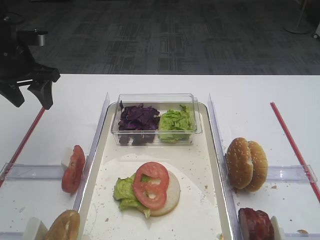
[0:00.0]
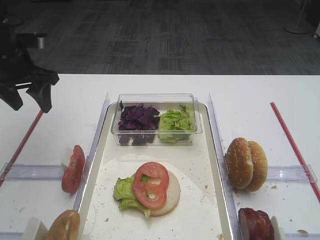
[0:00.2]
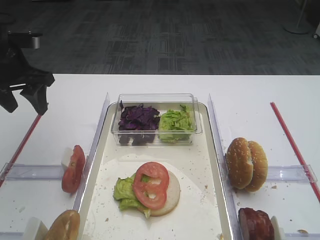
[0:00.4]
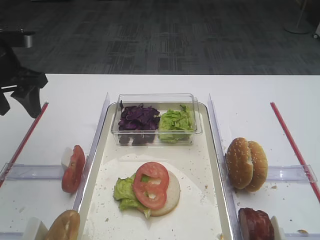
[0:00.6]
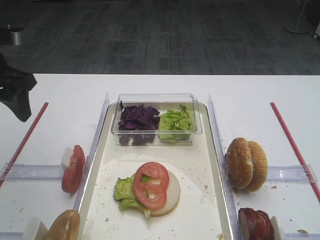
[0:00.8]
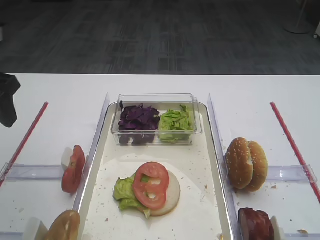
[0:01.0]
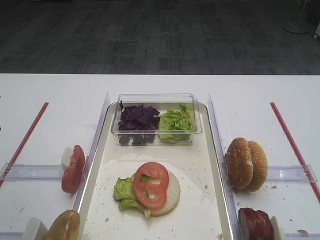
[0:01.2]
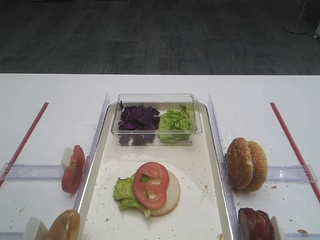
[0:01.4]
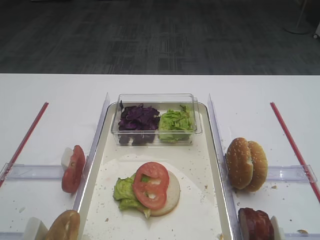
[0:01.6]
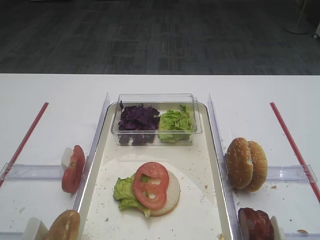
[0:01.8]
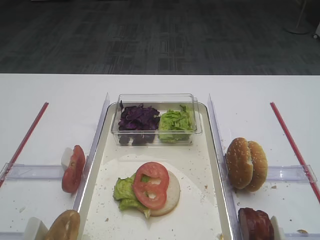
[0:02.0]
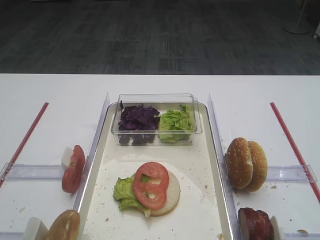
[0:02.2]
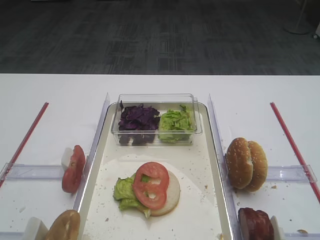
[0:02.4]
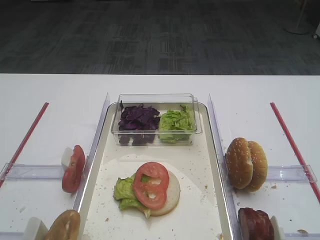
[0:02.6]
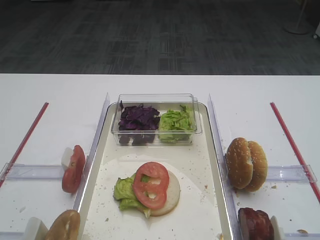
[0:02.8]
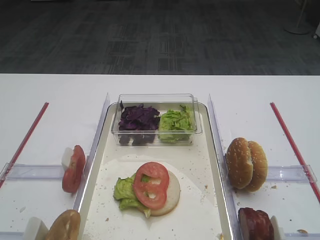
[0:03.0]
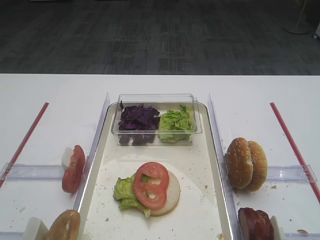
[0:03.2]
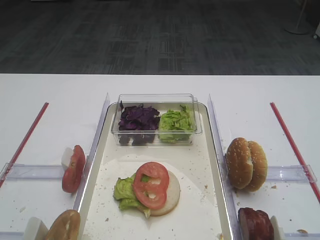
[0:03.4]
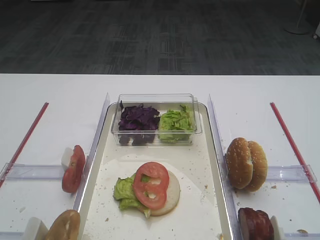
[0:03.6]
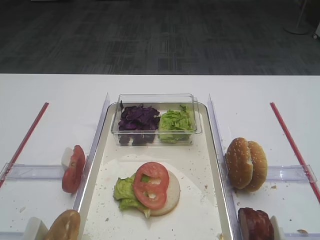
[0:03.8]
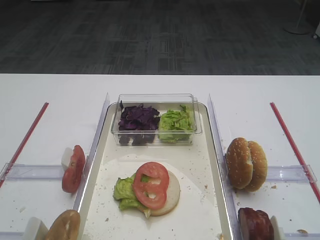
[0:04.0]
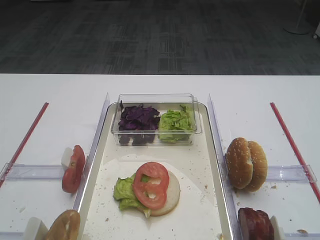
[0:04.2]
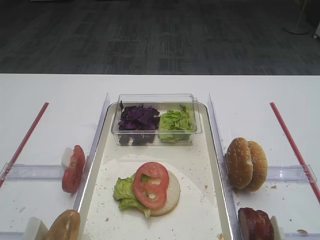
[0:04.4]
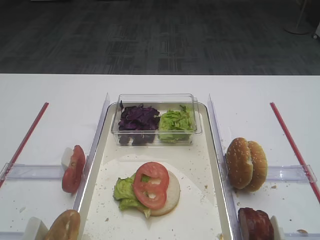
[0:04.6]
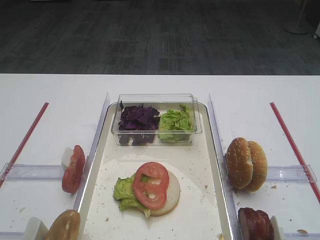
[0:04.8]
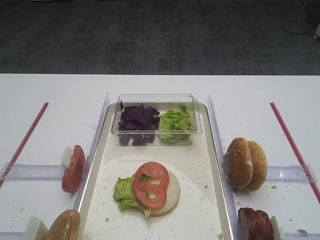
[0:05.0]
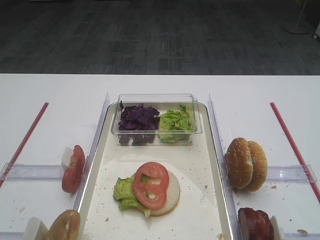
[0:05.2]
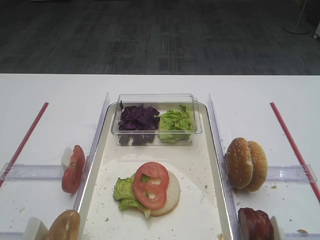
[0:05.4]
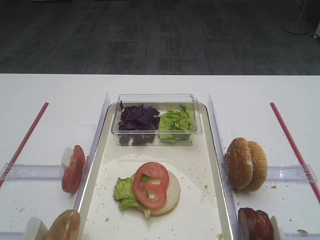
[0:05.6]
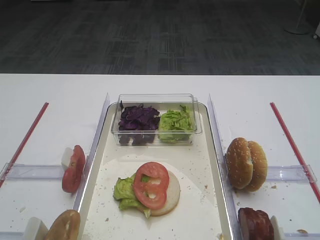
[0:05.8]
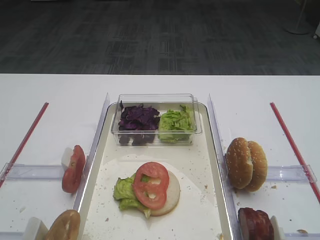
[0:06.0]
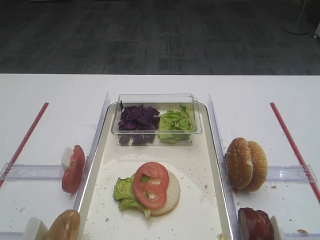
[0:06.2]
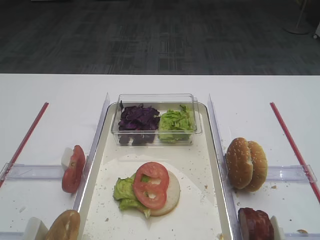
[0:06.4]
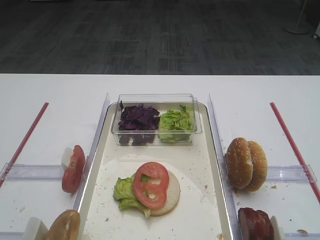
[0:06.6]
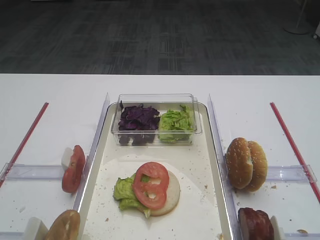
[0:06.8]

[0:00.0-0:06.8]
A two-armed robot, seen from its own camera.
0:00.0 to 0:01.4: The left gripper heads backward, covering roughly 20 cm.
0:04.0 to 0:06.8: The two grippers keep their place.

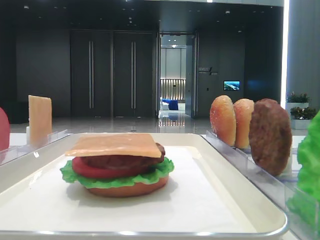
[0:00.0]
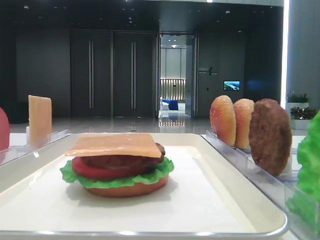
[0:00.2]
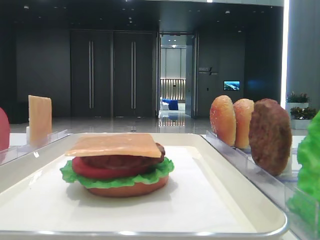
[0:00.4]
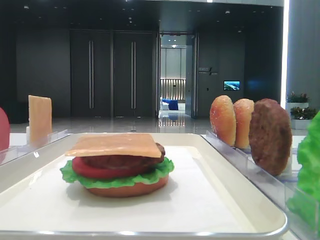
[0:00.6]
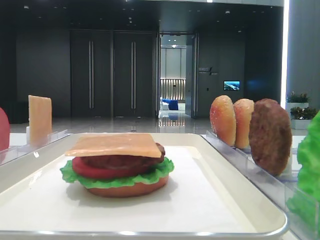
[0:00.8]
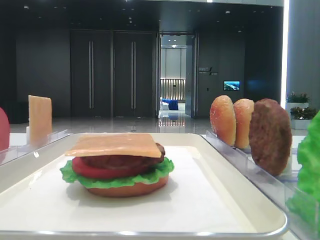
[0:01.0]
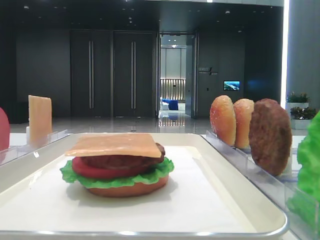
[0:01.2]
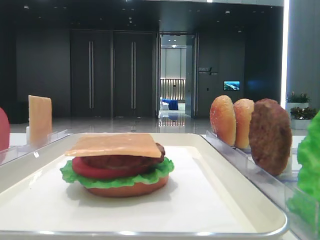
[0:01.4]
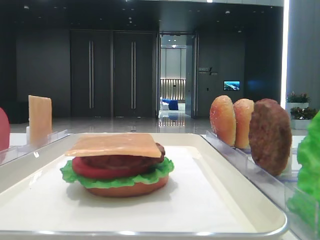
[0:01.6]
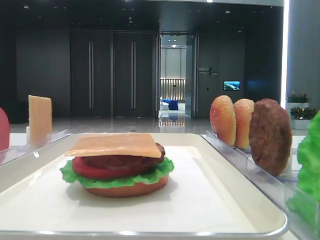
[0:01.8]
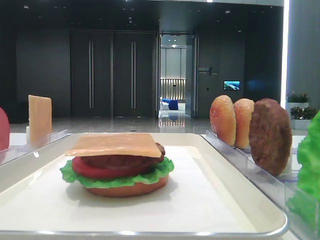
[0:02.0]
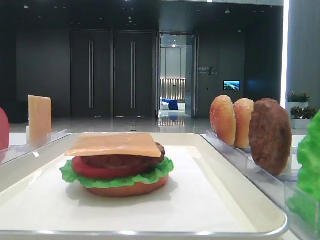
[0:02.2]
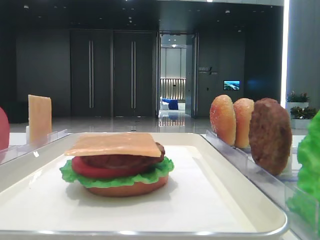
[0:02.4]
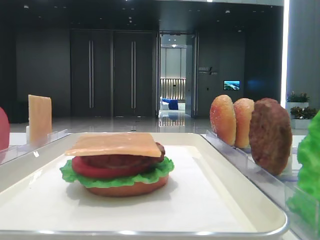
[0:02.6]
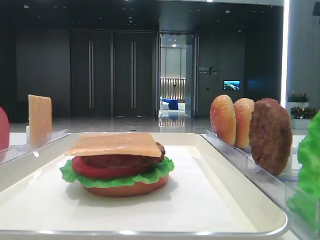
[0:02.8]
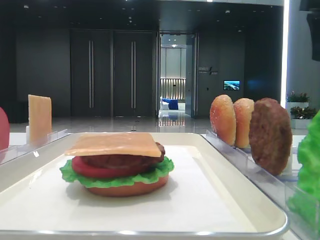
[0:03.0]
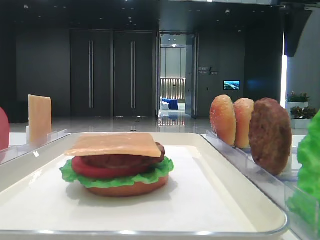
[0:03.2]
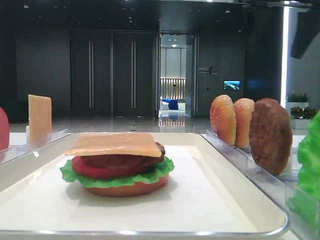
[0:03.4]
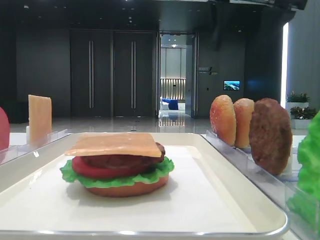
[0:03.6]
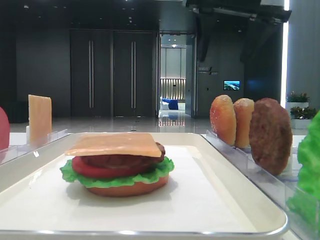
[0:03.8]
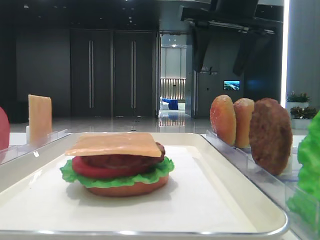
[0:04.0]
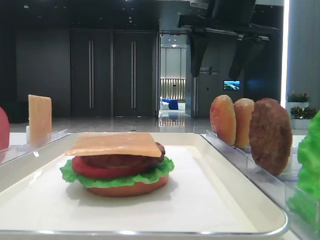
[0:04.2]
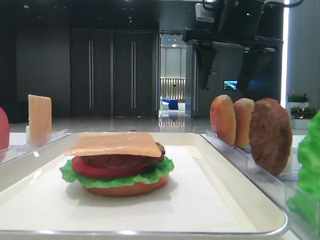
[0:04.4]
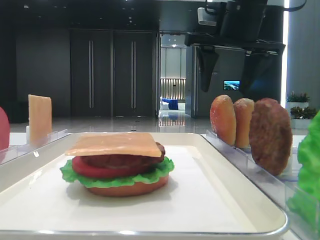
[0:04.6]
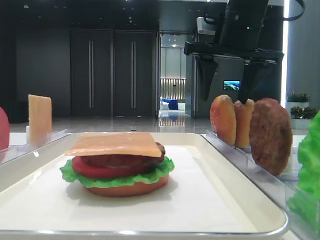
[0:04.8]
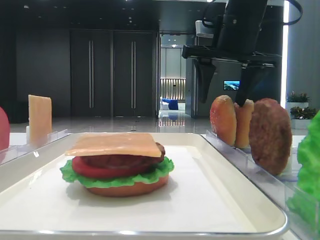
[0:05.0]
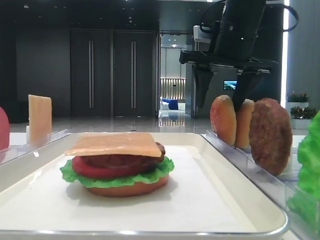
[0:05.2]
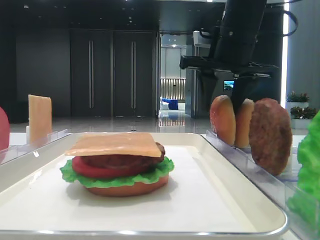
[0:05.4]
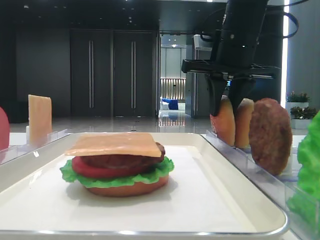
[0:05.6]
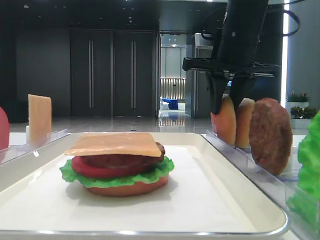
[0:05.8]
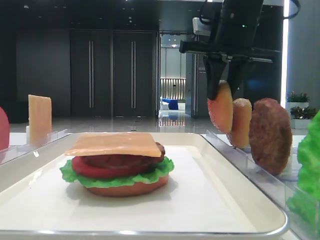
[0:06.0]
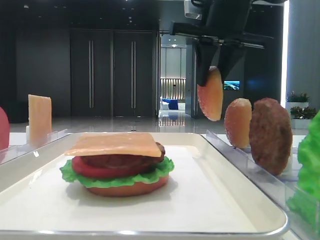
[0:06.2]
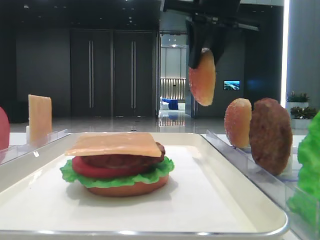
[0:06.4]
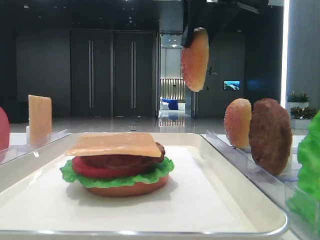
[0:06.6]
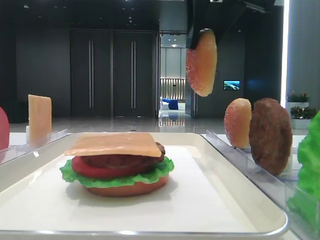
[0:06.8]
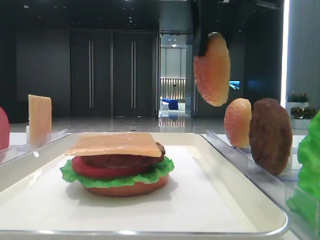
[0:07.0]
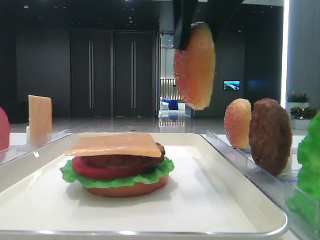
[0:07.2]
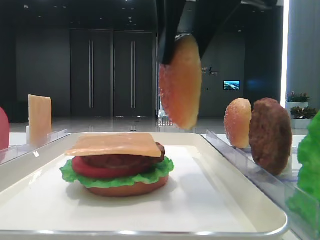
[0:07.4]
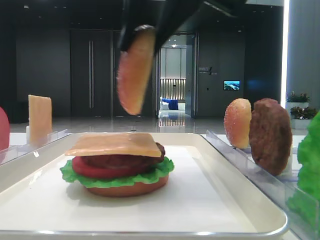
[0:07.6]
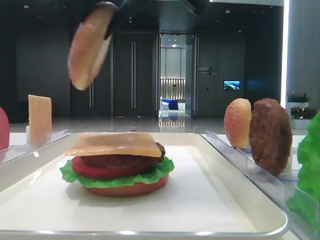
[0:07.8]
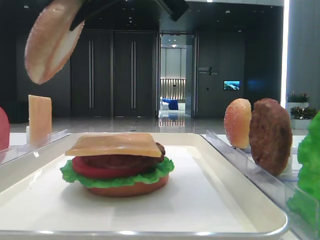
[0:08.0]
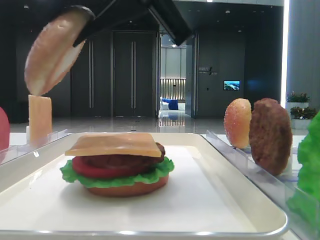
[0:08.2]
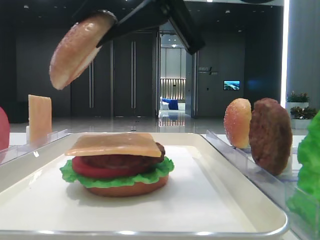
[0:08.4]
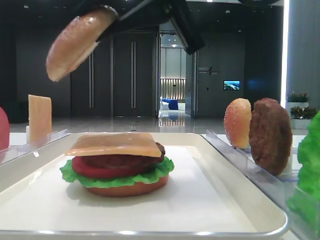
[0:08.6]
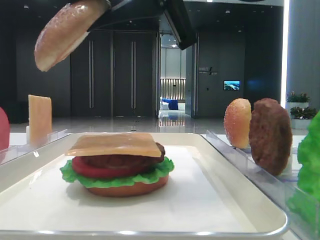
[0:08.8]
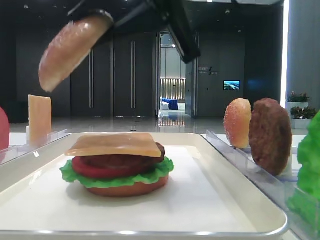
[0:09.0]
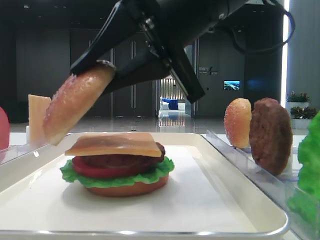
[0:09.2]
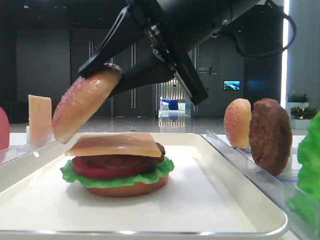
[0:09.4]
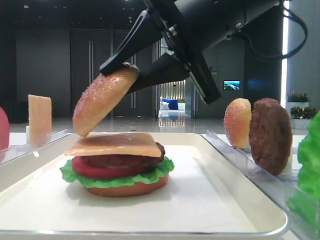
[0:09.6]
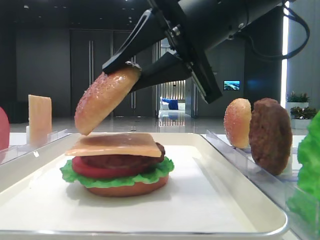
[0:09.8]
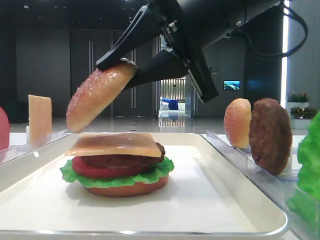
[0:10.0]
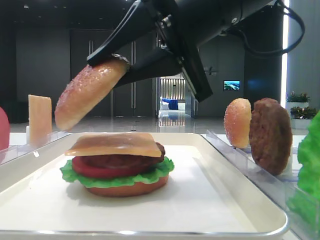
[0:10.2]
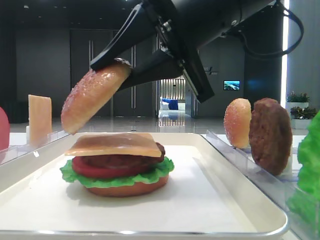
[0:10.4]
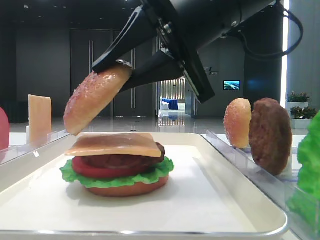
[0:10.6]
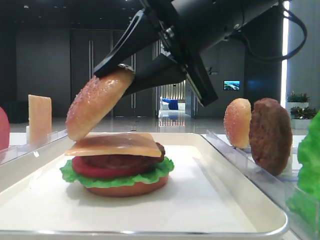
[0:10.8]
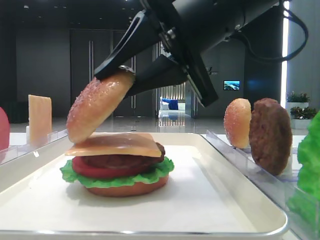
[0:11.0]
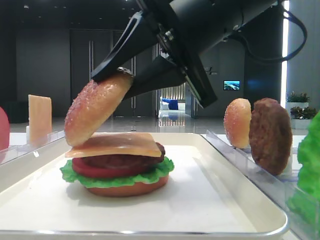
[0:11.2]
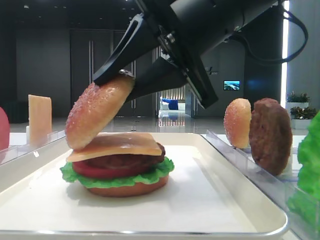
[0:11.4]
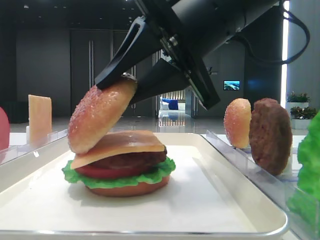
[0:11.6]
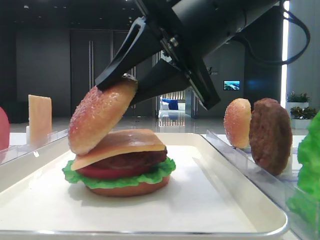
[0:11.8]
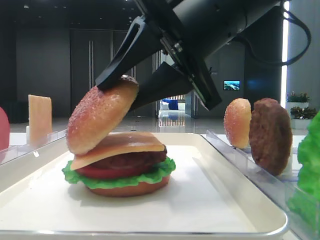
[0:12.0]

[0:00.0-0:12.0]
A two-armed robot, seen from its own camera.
Step, 0:00.0 to 0:05.6: Pick up the top bread slice with the right hand.
0:01.6 to 0:03.0: The right gripper goes roughly 35 cm forward.
0:03.0 to 0:04.4: The right gripper travels to the left by some 15 cm.
0:04.4 to 0:06.0: The right gripper closes its fingers.
0:06.0 to 0:07.6: The right gripper heads backward and to the left, covering approximately 20 cm.
0:09.0 to 0:12.0: The grippers move only a little.

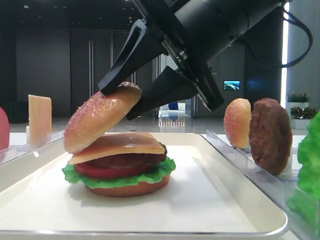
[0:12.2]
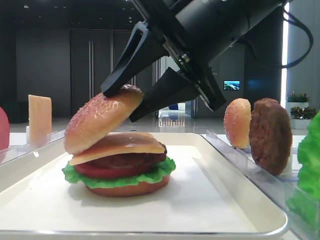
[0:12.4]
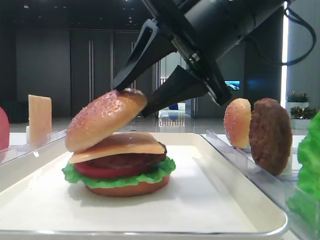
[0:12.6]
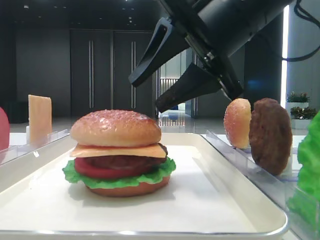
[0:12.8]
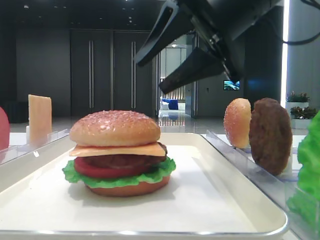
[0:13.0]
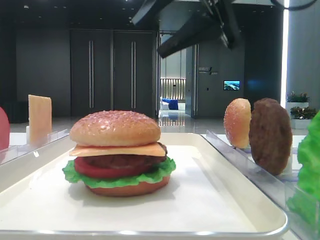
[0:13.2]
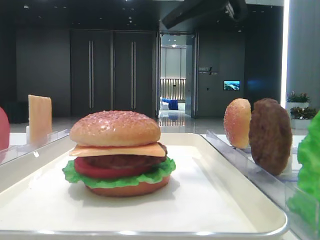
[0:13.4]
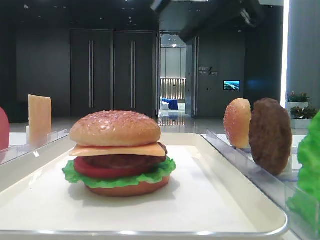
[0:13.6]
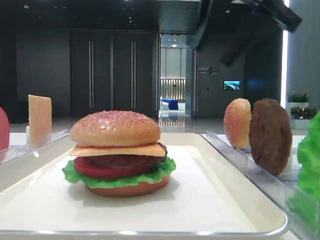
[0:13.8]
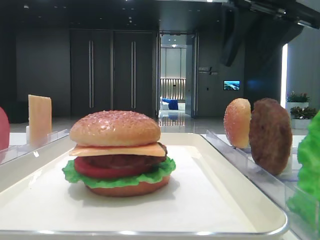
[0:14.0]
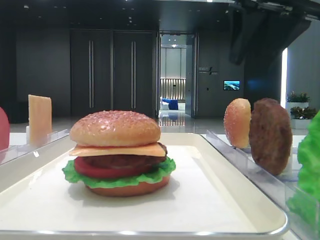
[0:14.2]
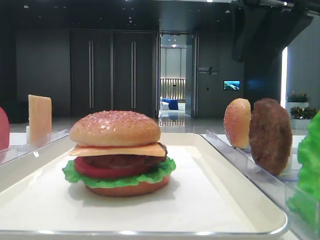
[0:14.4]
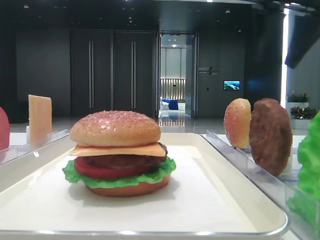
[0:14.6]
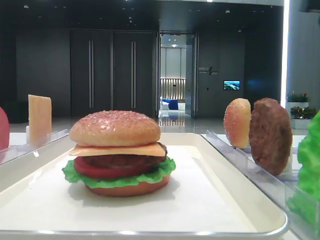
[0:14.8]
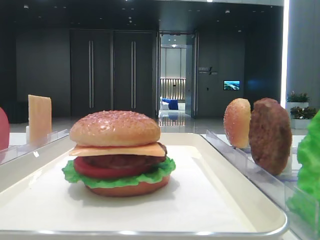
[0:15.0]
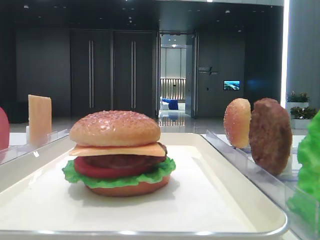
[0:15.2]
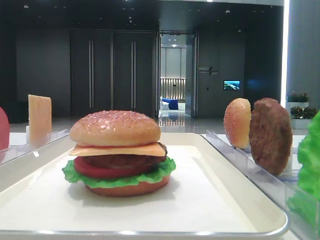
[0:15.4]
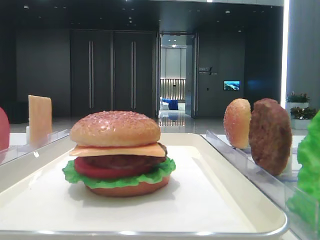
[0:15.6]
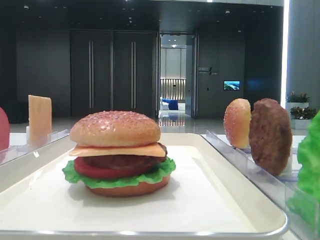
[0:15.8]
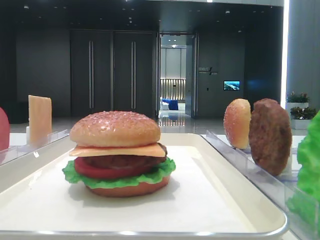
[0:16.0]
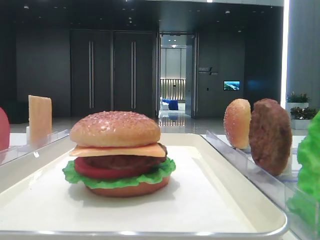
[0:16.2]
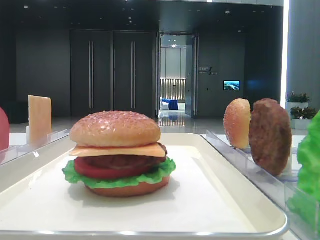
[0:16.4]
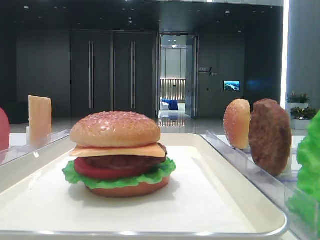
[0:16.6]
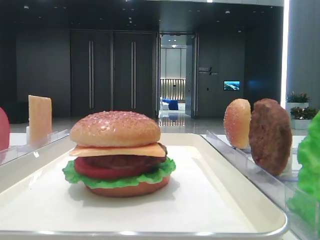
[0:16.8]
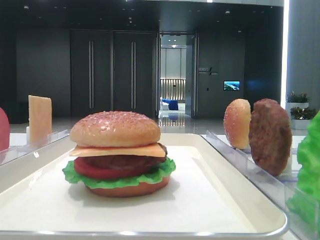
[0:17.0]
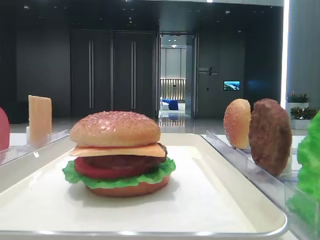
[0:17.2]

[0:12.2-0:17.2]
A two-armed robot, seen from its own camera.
0:12.2 to 0:13.8: The right gripper is displaced upward and to the right by some 10 cm.
0:13.8 to 0:15.6: The right gripper travels to the right and backward by approximately 25 cm.
